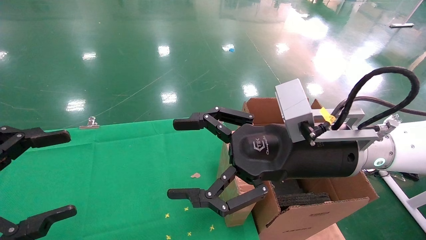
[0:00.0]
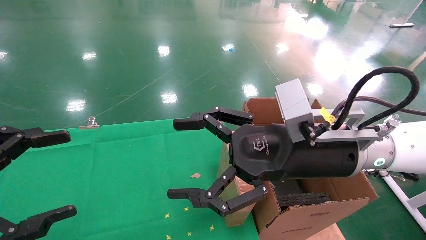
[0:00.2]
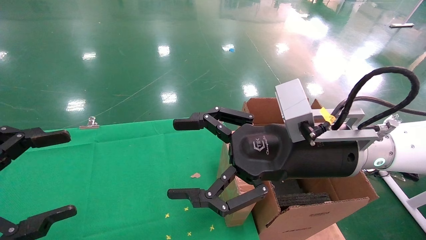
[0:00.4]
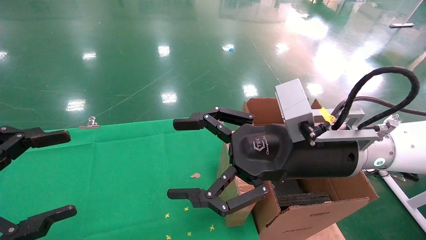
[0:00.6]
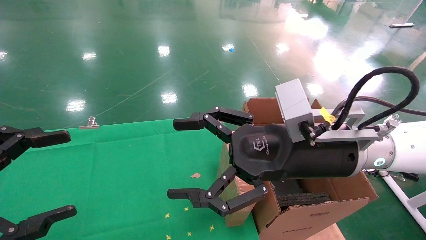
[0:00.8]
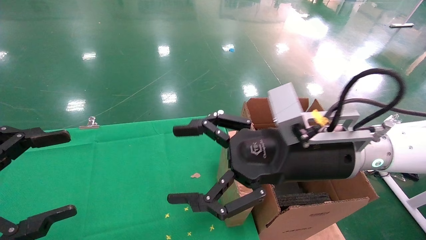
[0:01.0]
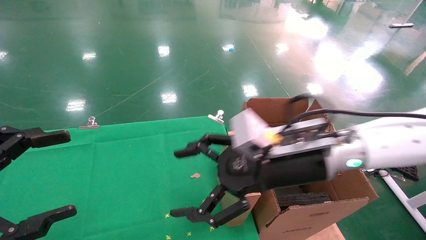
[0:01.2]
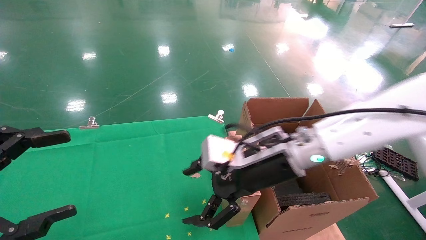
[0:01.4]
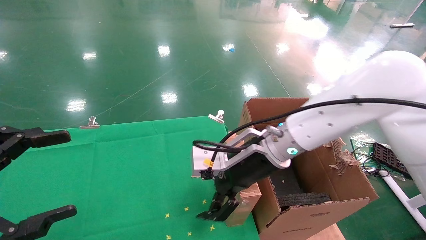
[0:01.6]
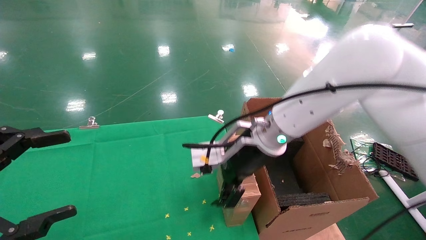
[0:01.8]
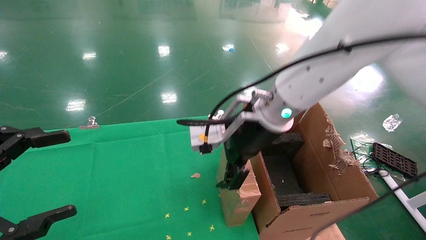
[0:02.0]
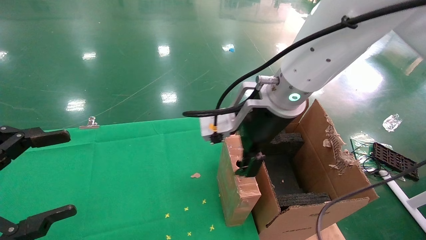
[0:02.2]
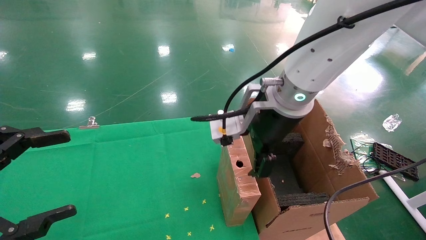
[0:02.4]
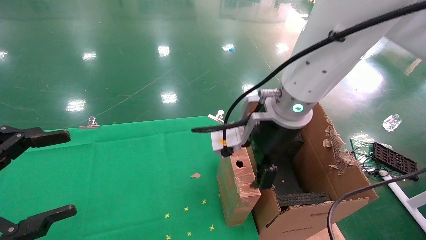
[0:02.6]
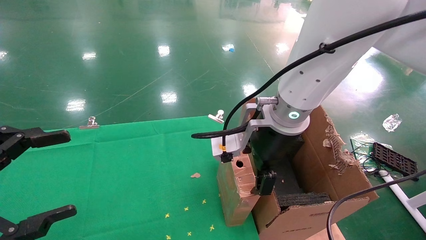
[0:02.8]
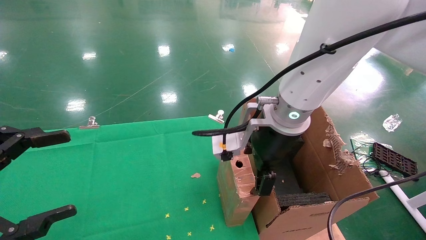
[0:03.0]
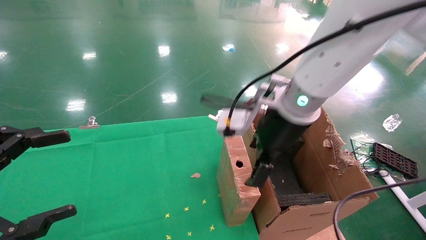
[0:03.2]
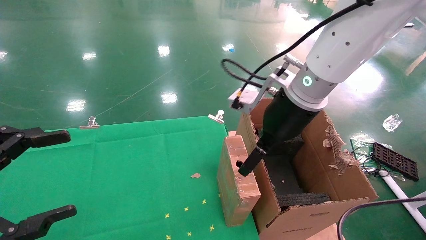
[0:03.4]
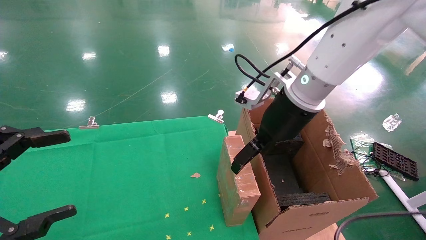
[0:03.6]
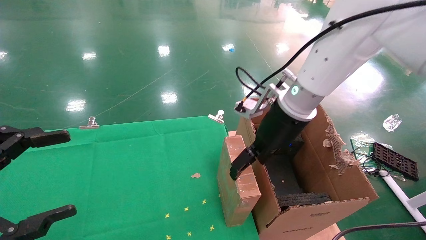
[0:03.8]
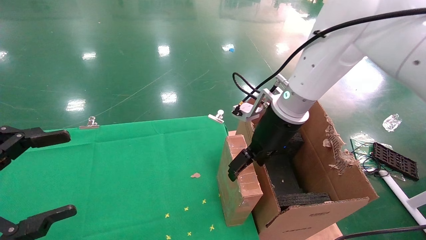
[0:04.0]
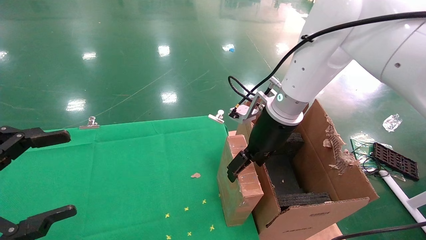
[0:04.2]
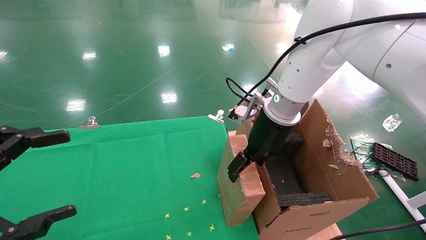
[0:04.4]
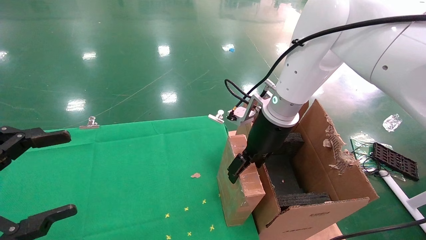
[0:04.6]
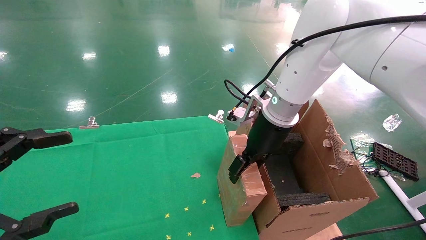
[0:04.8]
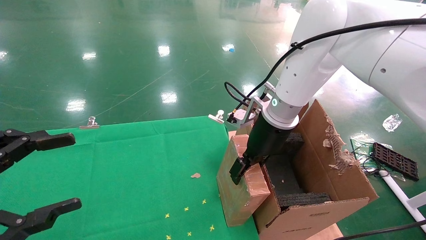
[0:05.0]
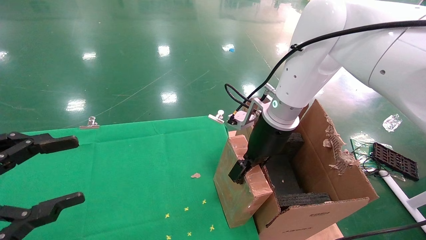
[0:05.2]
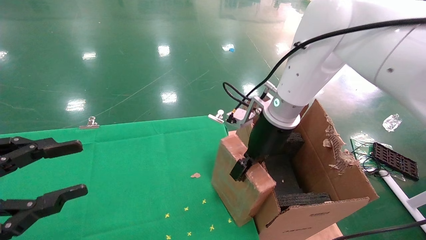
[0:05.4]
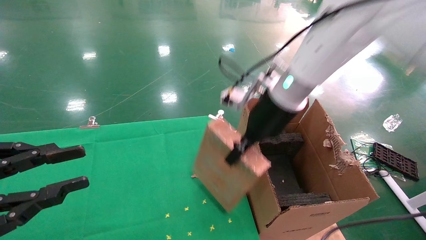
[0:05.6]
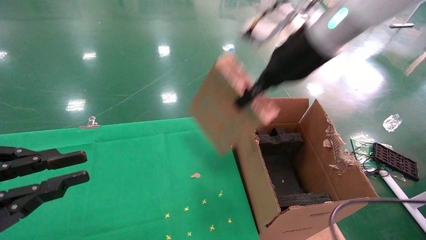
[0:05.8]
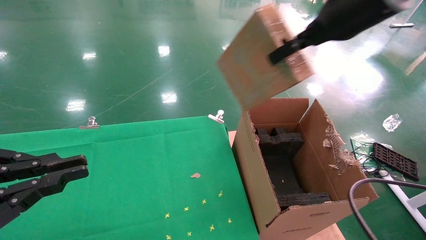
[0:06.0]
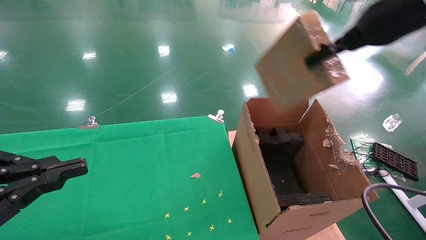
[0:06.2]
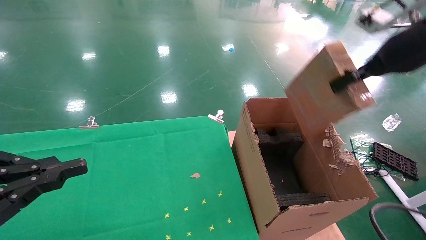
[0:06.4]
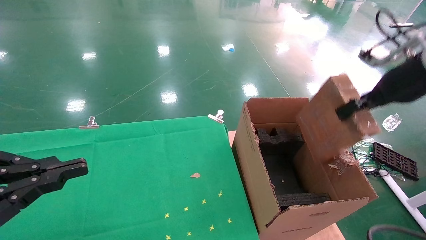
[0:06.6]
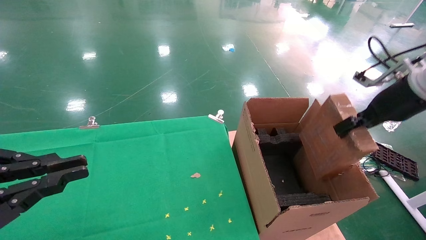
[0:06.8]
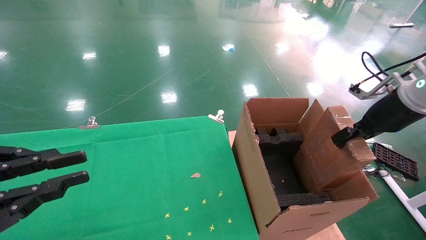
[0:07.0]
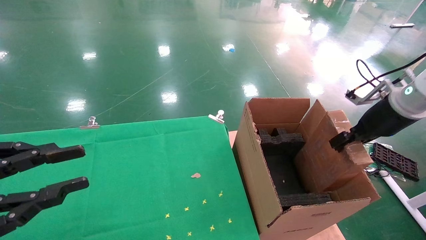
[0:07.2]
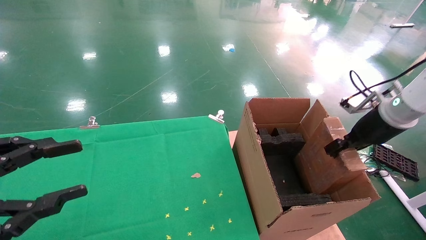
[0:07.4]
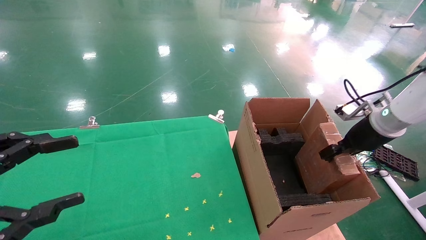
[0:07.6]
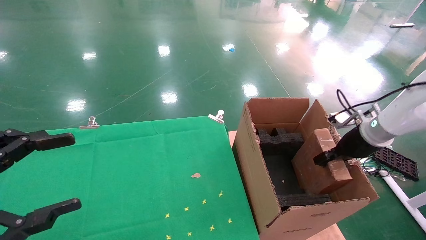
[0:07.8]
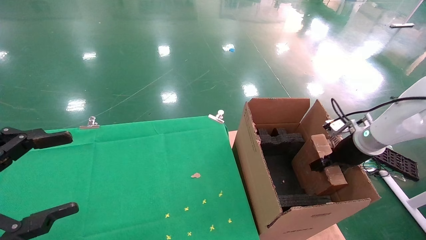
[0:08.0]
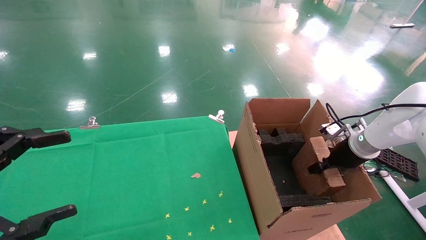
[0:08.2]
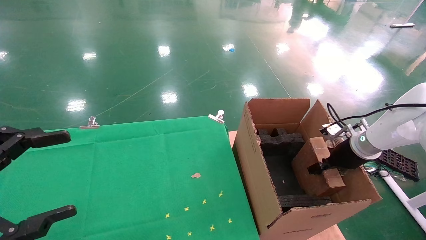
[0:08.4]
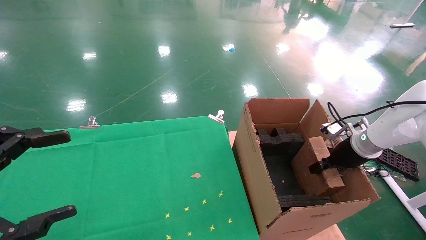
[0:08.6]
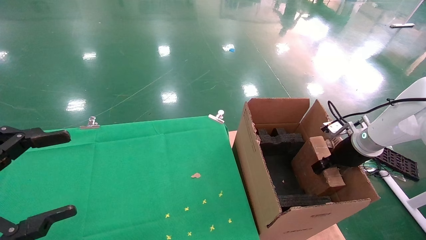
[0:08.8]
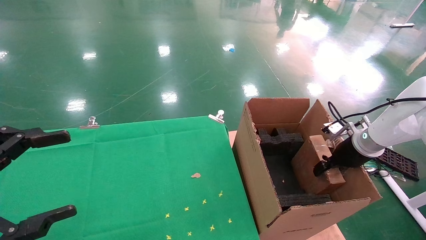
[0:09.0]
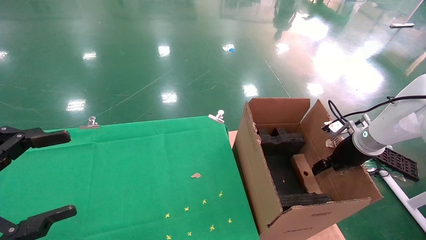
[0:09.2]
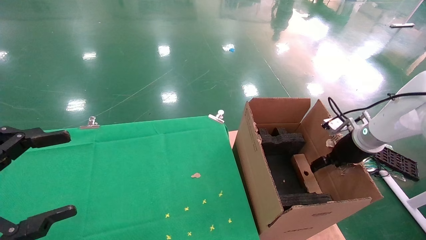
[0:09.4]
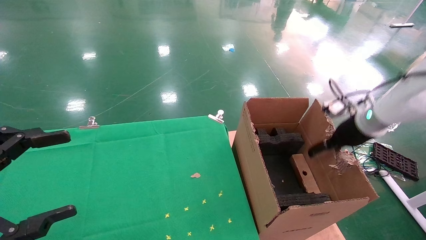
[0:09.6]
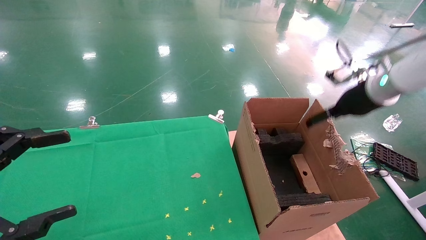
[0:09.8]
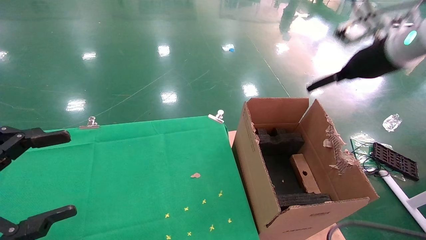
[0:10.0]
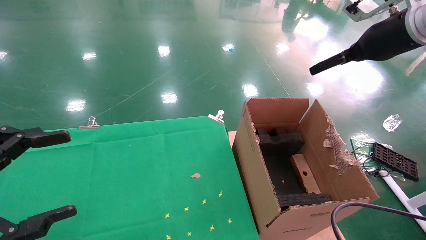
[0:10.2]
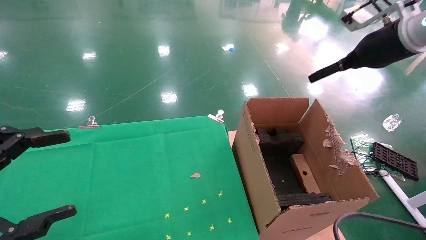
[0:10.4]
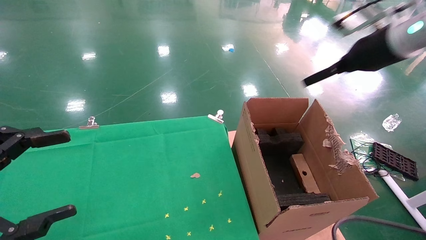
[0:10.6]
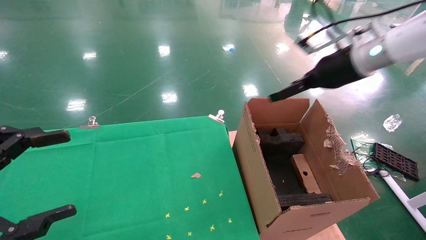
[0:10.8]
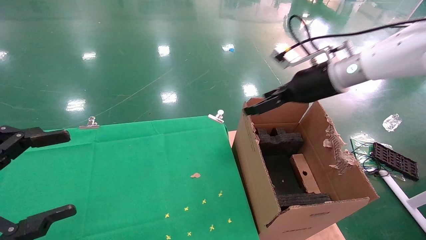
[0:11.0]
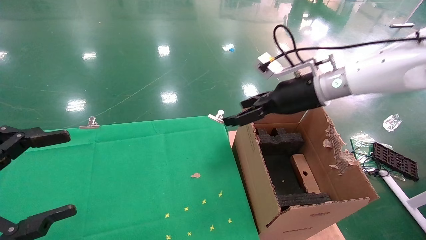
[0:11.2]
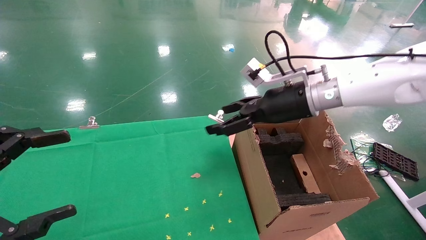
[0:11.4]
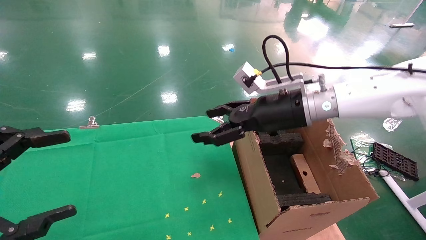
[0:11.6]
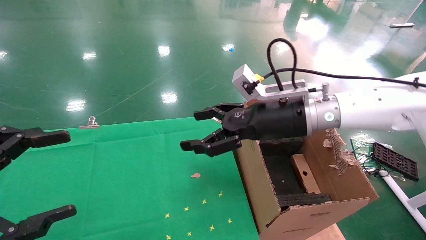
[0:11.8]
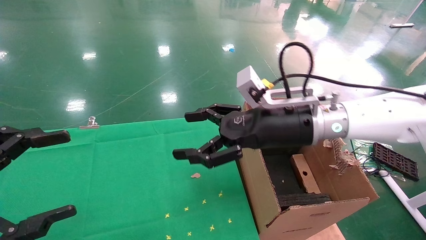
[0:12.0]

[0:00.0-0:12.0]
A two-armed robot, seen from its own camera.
Task of the whole recording: using a robotic arm to pick up a cardboard box and palace it the carton.
Step, 0:01.2 to 0:05.4: Pick up the mouse and the power cord paper box.
Step, 0:05.6 to 0:10.0: Place the mouse and the power cord paper box into the container.
0:00.0 to 0:01.6: The right gripper shifts roughly 10 cm forward and to the left.
0:01.6 to 0:03.0: The right gripper moves upward, some 5 cm.
0:03.0 to 0:04.4: The right gripper is displaced forward by approximately 5 cm.
0:04.4 to 0:06.0: The left gripper closes, while the right gripper is displaced upward and to the right by roughly 20 cm, and closes up.
0:06.0 to 0:07.6: The left gripper opens. The right gripper is displaced downward and to the right by roughly 30 cm.
0:07.6 to 0:09.0: The right gripper moves downward, approximately 5 cm; the left gripper opens up.
0:09.0 to 0:10.4: The right gripper shifts roughly 25 cm upward, and opens its fingers.
0:10.4 to 0:12.0: The right gripper shifts roughly 25 cm to the left and downward.

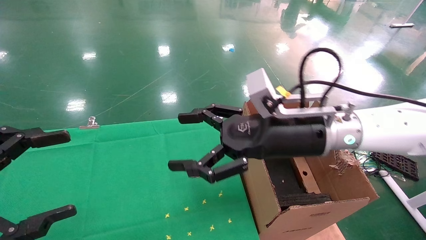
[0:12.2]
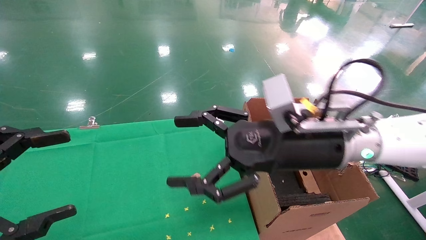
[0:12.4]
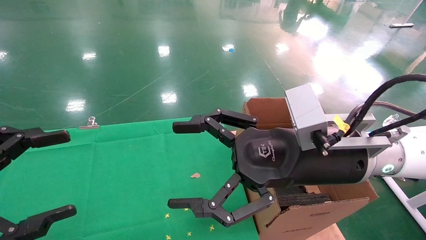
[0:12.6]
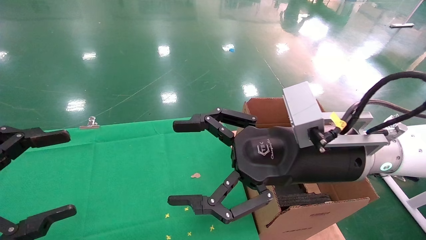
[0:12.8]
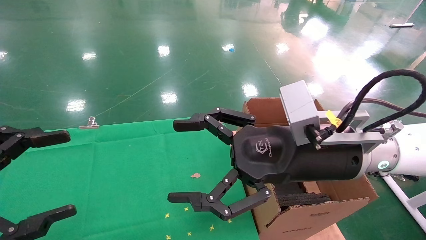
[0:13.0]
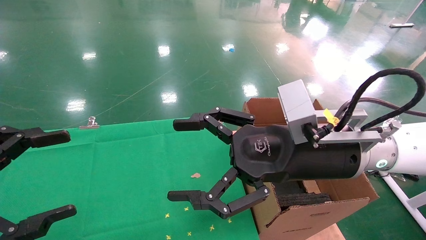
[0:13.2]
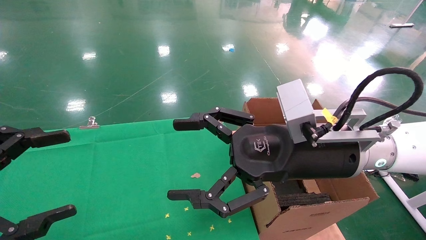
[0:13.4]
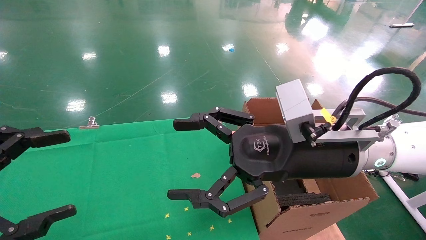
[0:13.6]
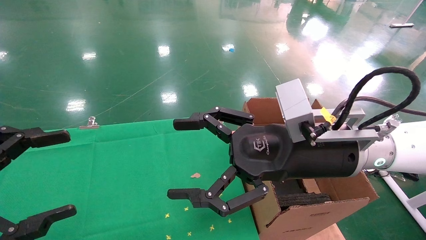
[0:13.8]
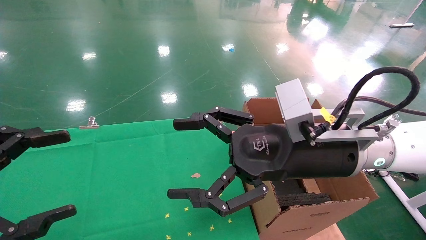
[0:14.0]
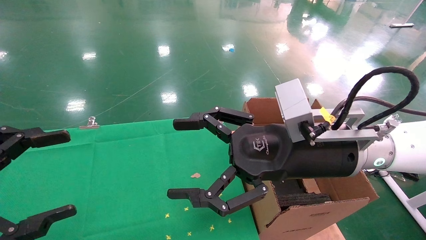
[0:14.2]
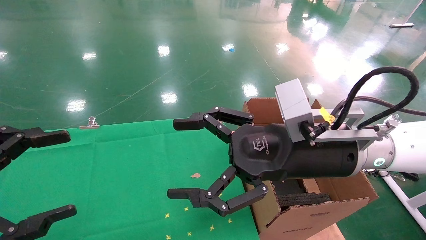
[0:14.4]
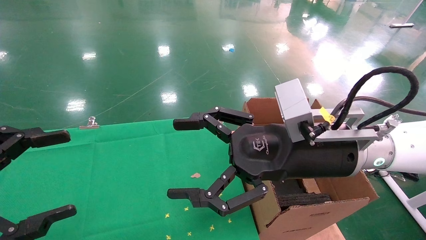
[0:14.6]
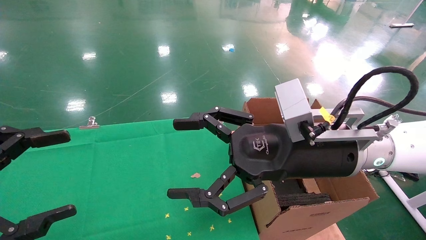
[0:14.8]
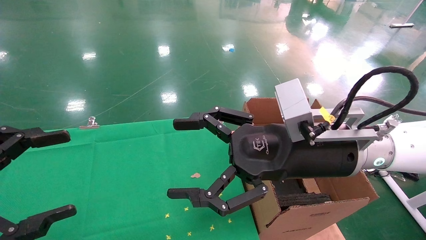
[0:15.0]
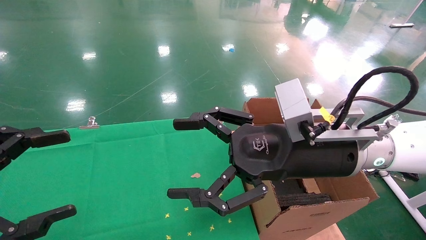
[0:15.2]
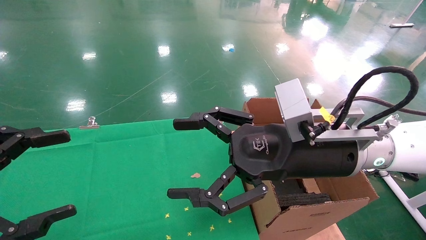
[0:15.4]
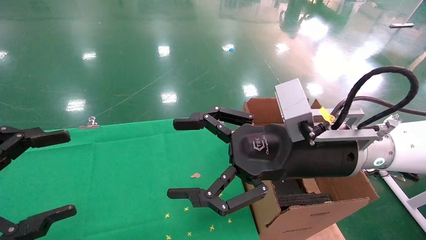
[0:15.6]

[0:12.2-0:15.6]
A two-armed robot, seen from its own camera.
Task of the whole recording: using a robotic arm to pick up a cardboard box and palace it the carton.
0:12.2 to 0:13.8: The grippers move only a little.
0:13.8 to 0:15.6: Neither gripper changes place.
